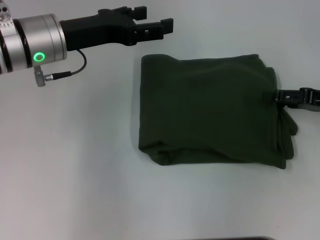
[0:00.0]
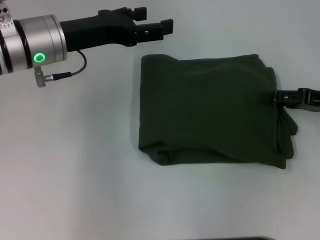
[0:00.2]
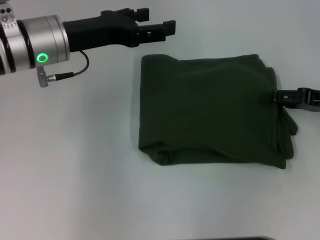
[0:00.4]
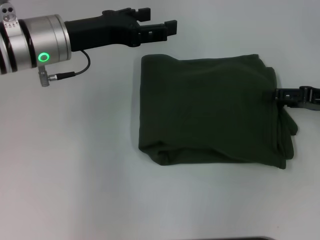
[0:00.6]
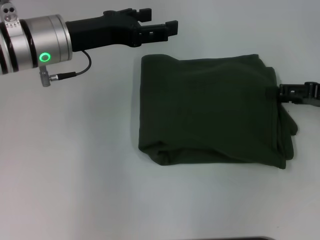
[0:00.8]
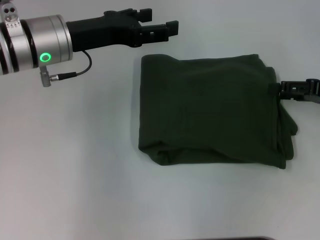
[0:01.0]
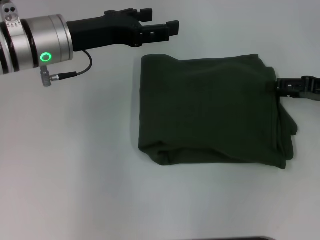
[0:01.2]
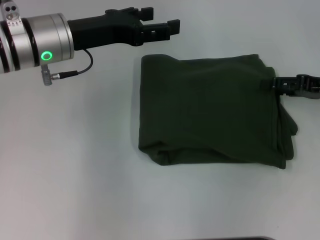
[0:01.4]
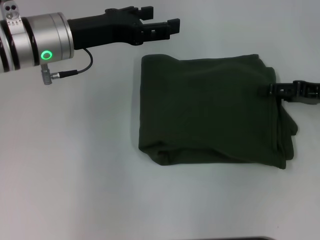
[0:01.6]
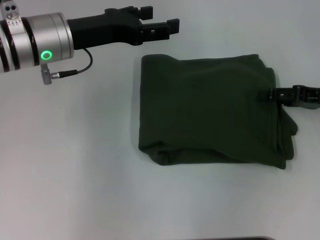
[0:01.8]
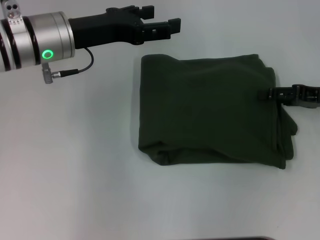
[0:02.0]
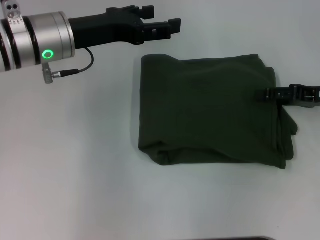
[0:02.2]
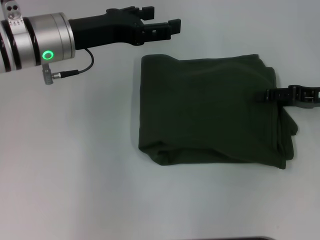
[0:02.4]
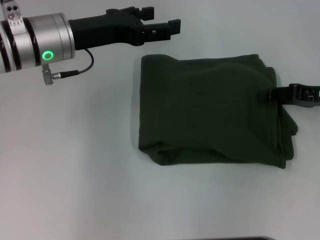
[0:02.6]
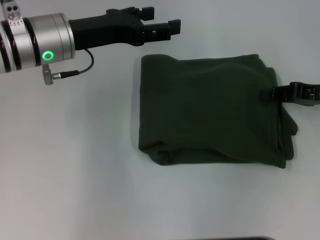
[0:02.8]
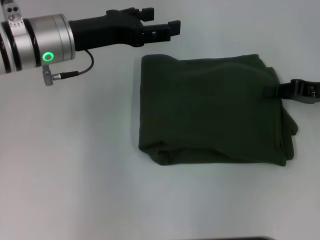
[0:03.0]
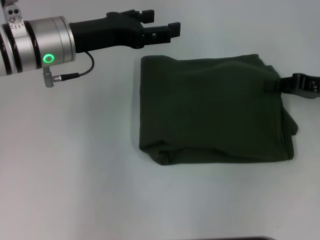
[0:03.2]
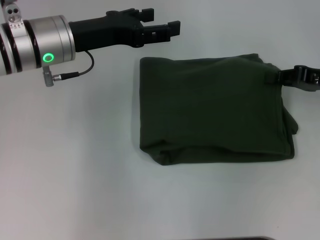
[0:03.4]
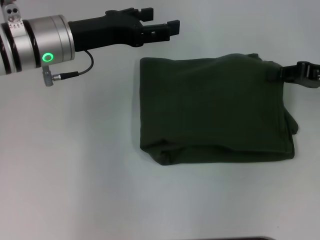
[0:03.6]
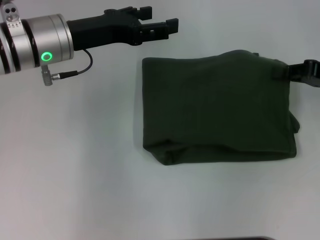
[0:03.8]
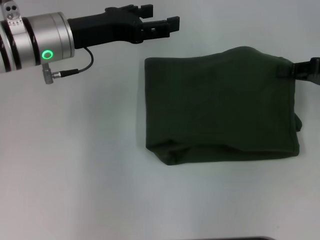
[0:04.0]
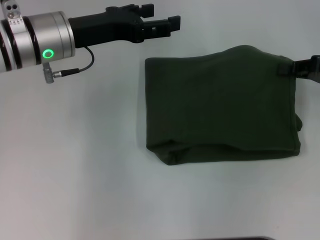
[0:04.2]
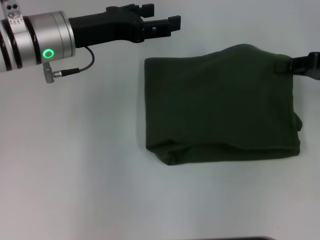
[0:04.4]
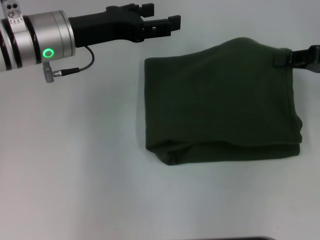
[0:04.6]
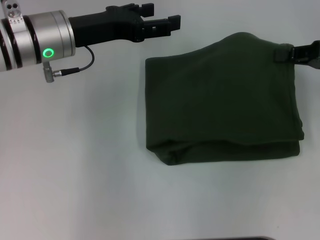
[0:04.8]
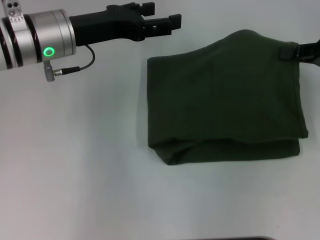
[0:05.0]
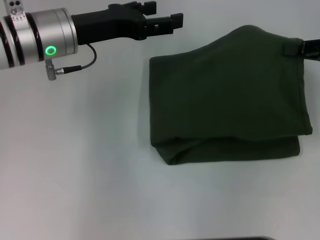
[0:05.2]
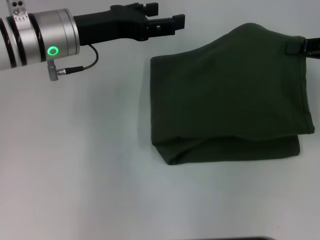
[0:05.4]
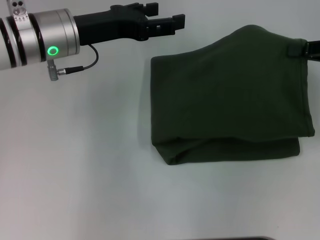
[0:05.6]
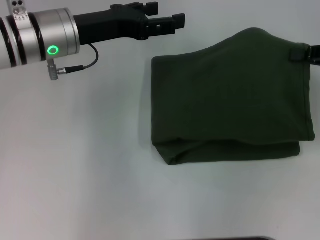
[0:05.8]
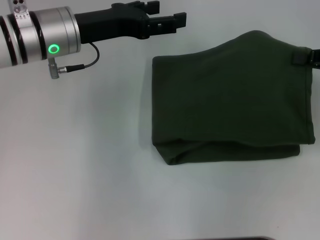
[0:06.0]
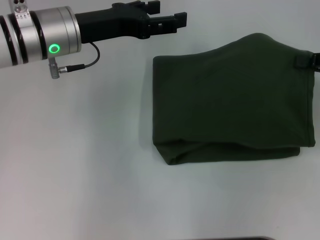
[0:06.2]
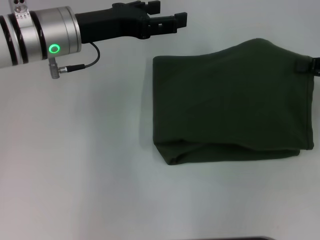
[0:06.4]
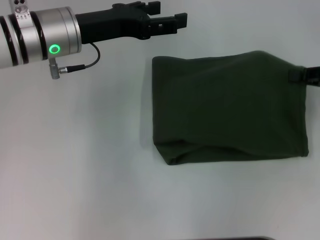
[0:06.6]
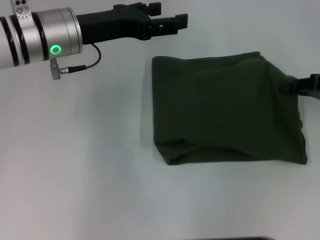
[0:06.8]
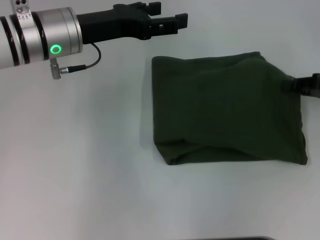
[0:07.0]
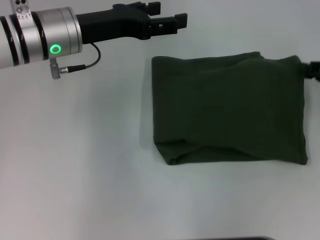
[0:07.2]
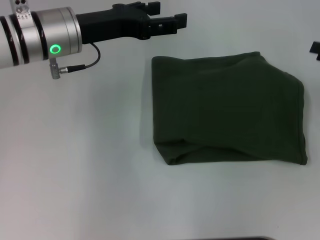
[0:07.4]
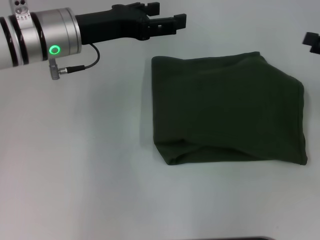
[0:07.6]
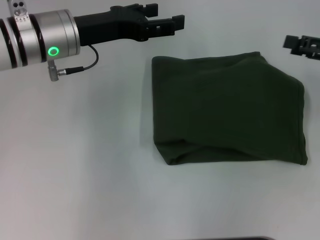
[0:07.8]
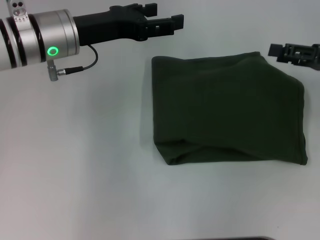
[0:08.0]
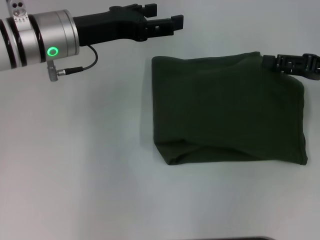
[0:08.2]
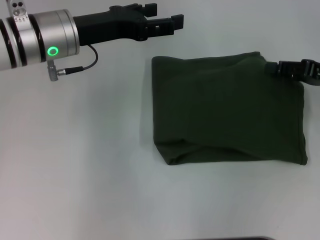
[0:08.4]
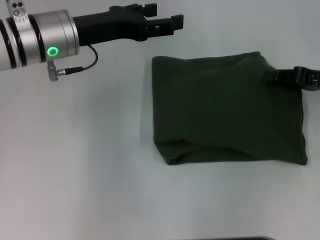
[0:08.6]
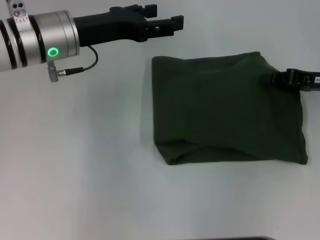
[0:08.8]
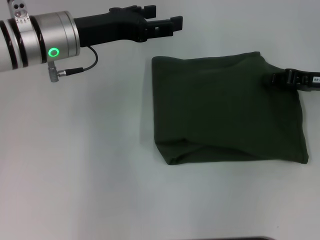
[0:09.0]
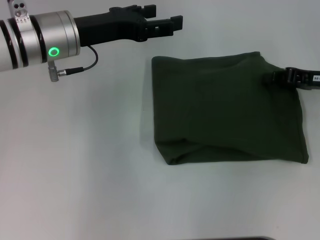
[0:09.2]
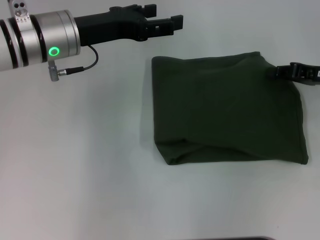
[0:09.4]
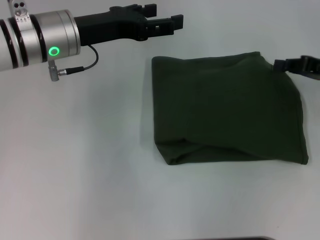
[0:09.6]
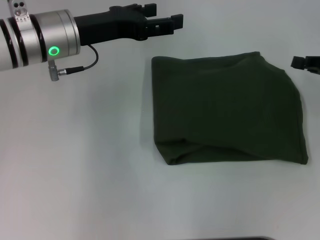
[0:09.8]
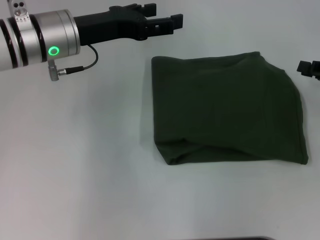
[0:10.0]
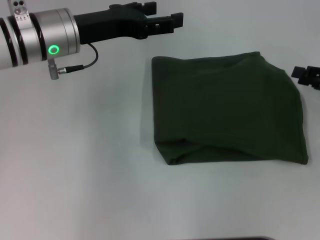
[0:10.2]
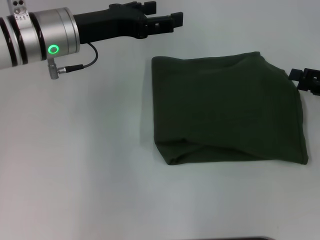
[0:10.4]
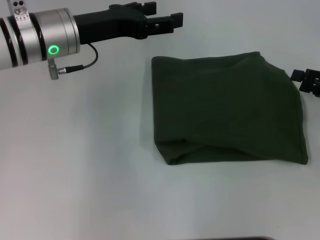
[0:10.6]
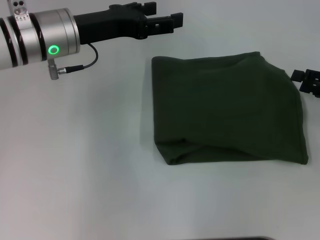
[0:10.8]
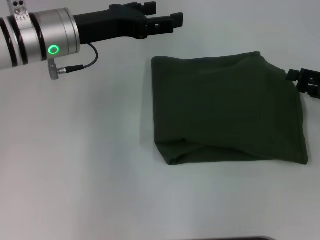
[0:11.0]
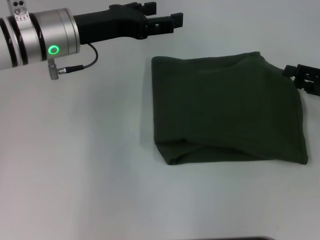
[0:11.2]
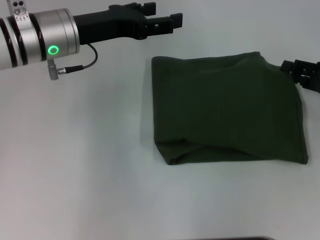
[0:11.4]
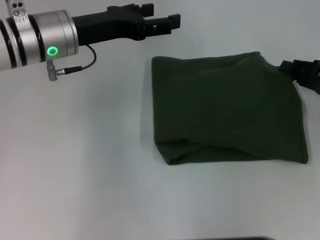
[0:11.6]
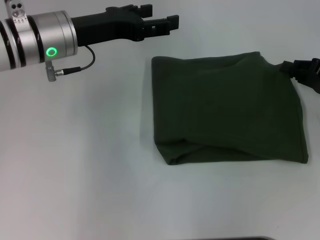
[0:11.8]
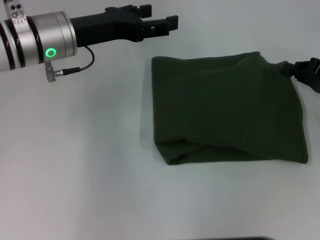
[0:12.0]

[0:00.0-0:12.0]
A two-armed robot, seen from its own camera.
0:00.0 to 0:01.6: The grippers make only small movements.
0:01.6 to 0:03.0: The right gripper closes up.
0:03.0 to 0:04.4: The grippers stay close to where they were, moving slightly.
0:04.4 to 0:06.0: The grippers move only a little.
0:06.0 to 0:07.6: The right gripper opens.
0:07.6 to 0:09.0: The right gripper goes about 10 cm to the left and downward, and closes up.
0:09.0 to 0:10.4: The right gripper changes place by about 5 cm, and opens up.
0:10.4 to 0:12.0: The grippers make only small movements.

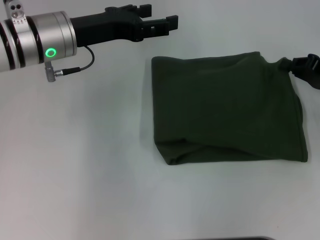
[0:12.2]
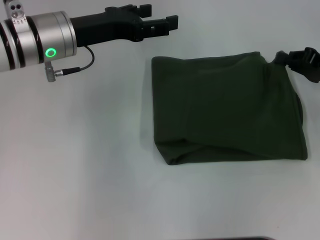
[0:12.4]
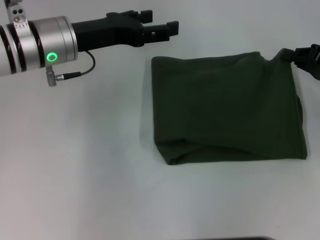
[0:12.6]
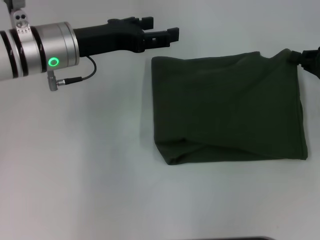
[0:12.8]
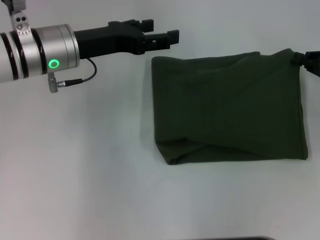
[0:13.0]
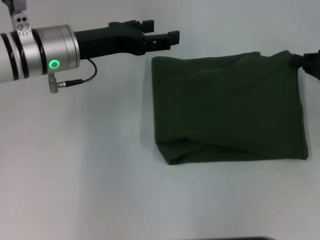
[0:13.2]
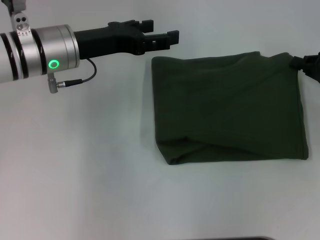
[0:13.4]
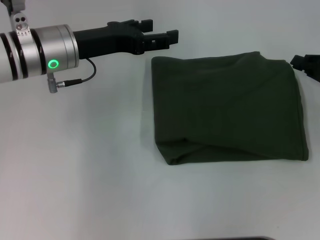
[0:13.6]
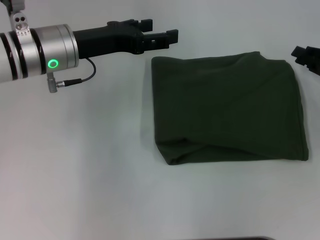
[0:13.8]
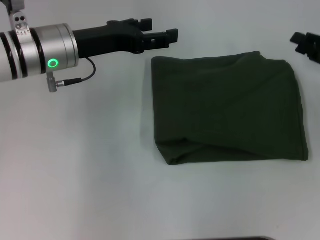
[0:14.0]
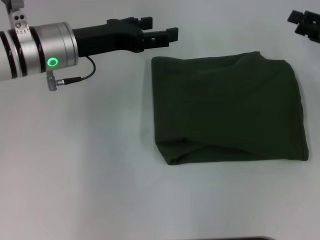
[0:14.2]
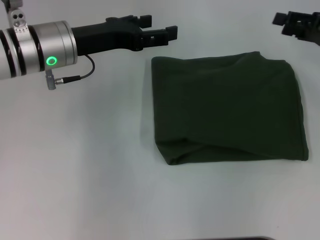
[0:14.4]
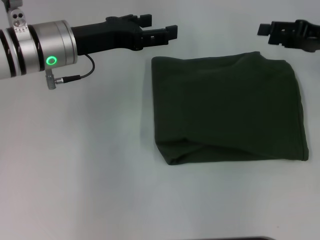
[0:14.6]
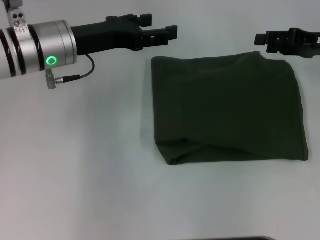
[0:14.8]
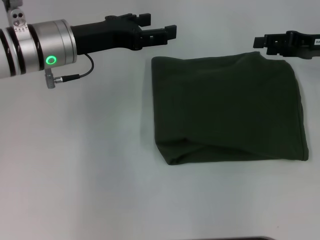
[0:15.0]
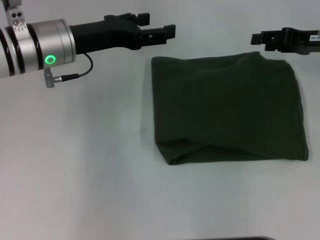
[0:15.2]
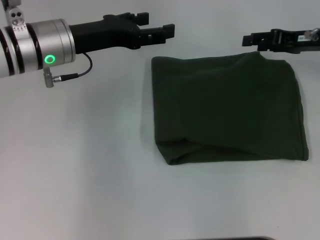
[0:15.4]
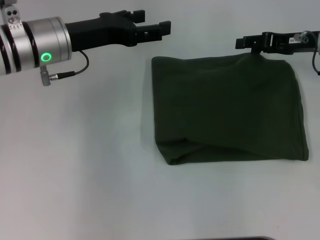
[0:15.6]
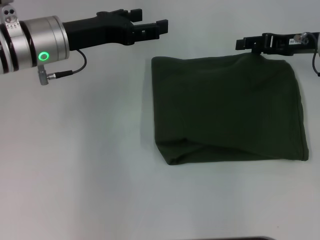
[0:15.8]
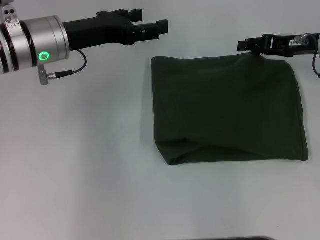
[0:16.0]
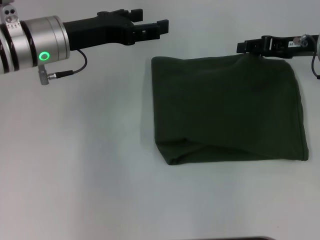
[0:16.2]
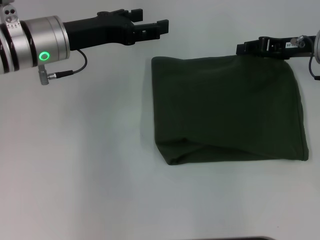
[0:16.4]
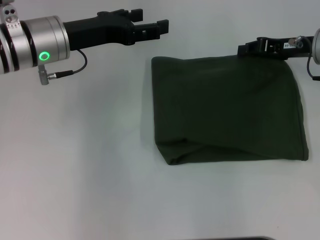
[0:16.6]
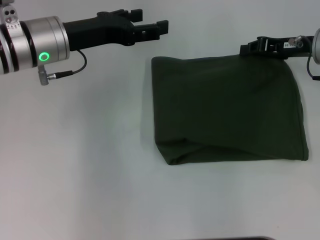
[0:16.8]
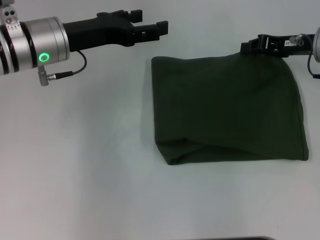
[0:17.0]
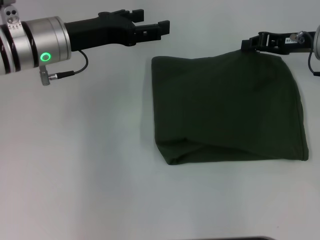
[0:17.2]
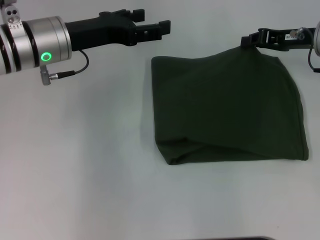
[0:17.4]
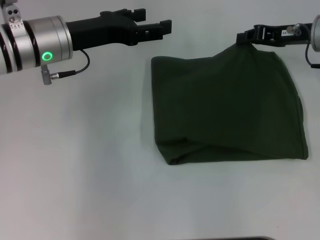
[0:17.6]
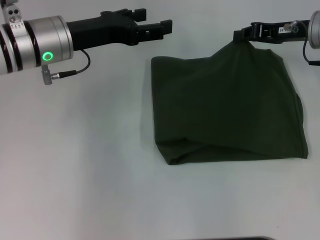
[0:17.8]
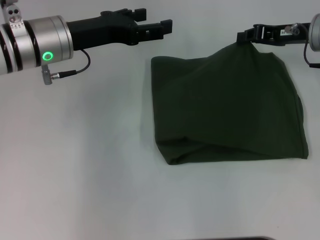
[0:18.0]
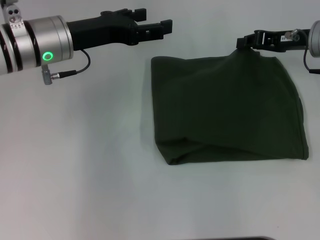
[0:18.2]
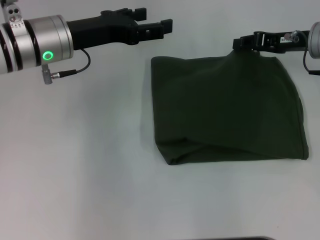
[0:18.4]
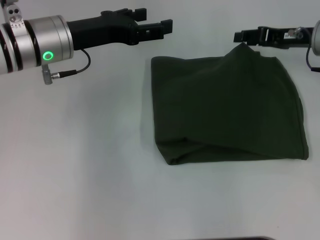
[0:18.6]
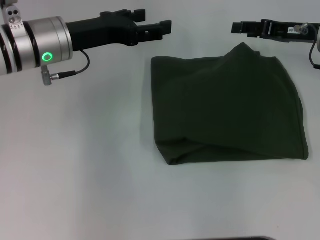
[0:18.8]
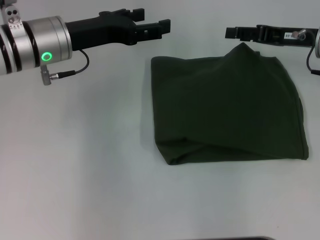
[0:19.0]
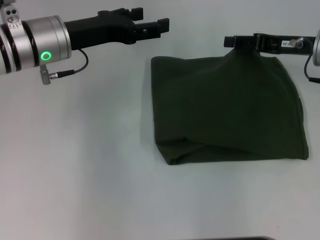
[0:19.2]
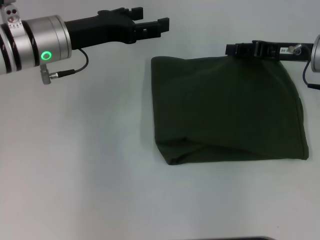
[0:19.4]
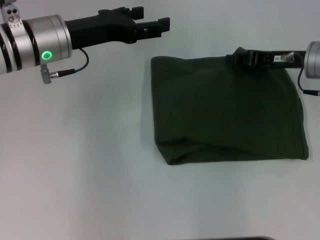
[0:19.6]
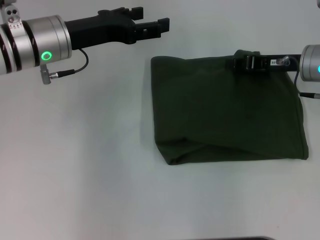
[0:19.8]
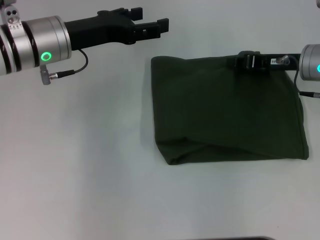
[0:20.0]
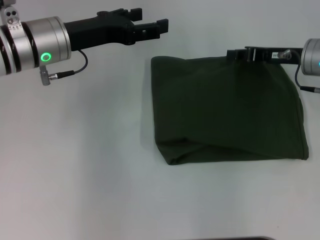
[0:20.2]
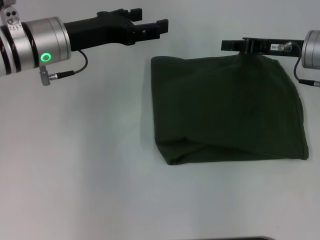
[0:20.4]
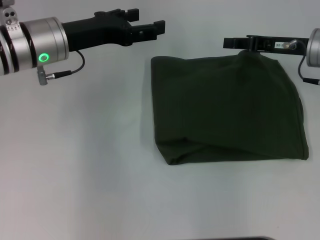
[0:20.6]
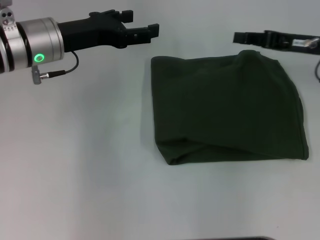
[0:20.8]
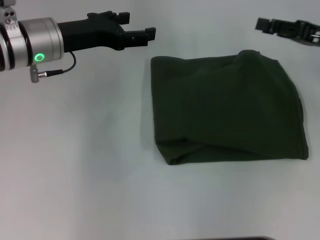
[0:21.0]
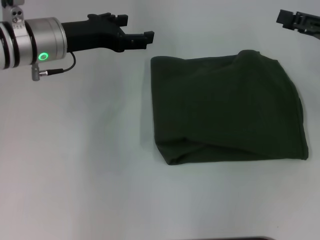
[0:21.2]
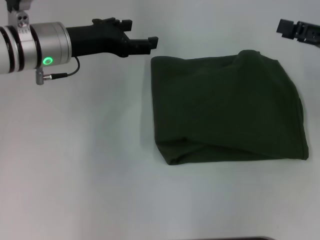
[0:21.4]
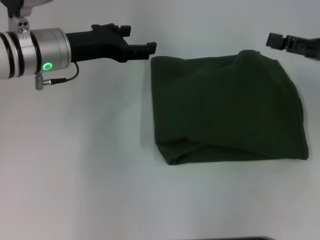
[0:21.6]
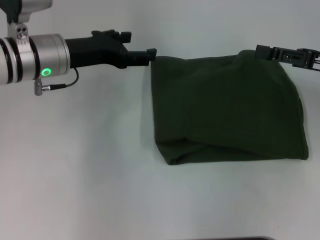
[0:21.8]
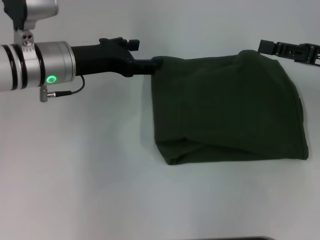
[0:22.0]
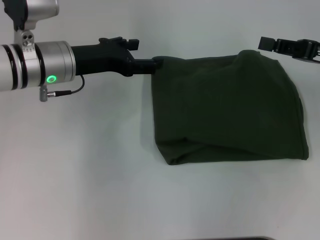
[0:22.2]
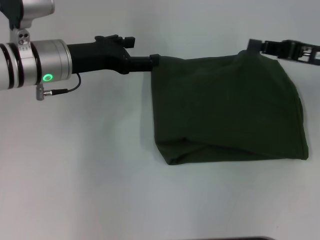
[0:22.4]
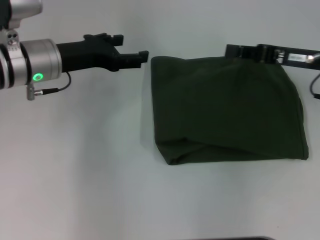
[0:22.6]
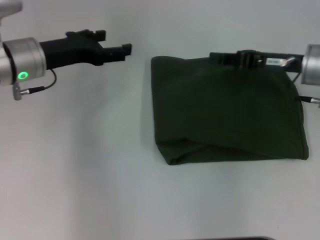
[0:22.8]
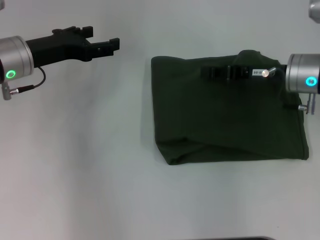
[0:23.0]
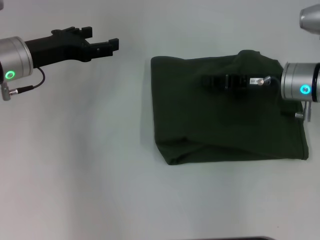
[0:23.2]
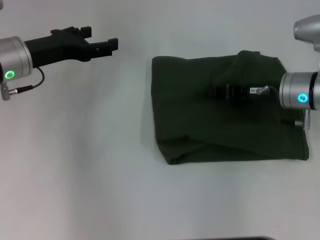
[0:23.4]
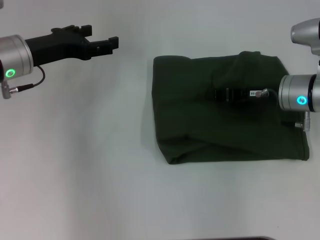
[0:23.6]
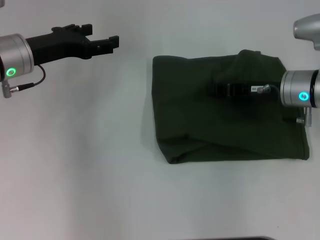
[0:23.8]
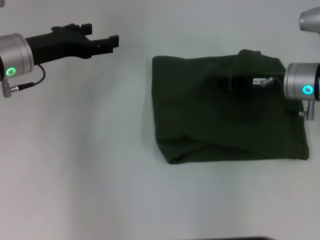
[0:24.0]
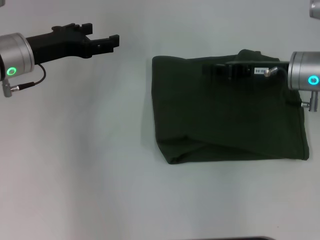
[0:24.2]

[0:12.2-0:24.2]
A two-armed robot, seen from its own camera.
0:12.2 to 0:13.8: The grippers move only a little.
0:13.8 to 0:15.2: The right gripper goes some 10 cm forward and upward, and opens.
0:15.2 to 0:16.6: There are only small adjustments of the grippers.
0:16.6 to 0:18.2: The right gripper closes its fingers.
0:18.2 to 0:19.8: The right gripper opens, then closes once more.
0:19.8 to 0:21.2: The right gripper moves to the right and upward, about 10 cm, and opens.
0:21.2 to 0:22.6: The right gripper is displaced to the left by roughly 5 cm, and closes its fingers.
